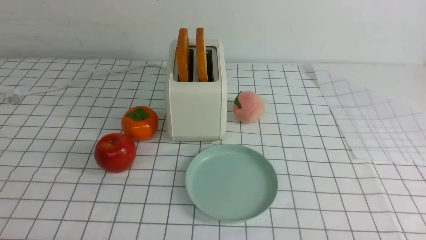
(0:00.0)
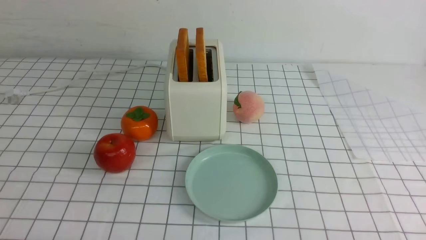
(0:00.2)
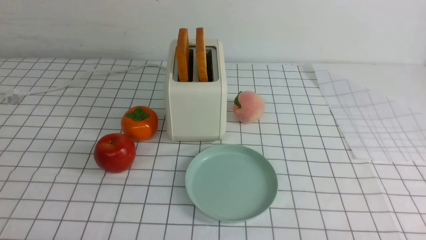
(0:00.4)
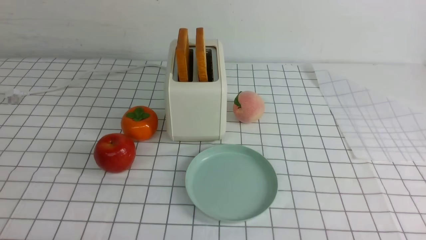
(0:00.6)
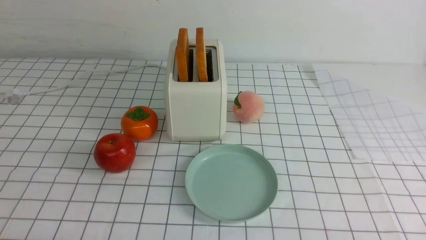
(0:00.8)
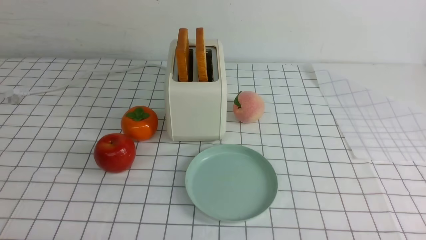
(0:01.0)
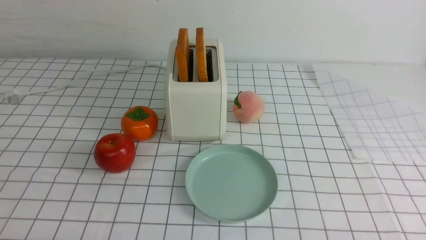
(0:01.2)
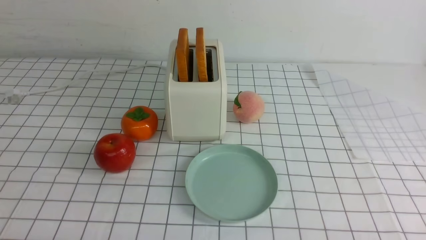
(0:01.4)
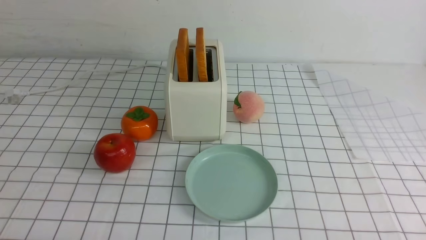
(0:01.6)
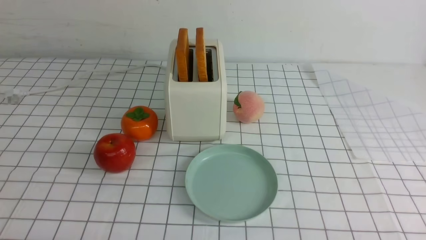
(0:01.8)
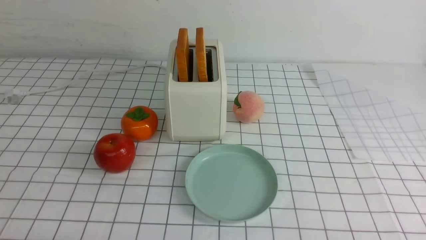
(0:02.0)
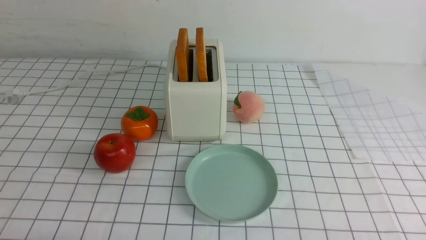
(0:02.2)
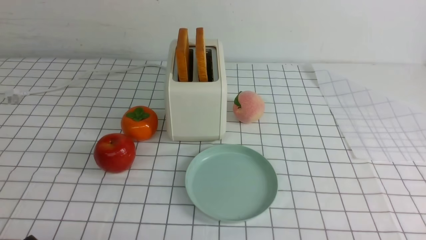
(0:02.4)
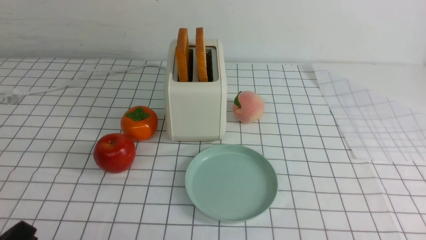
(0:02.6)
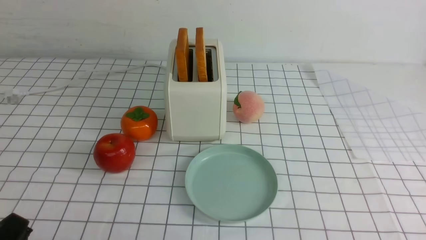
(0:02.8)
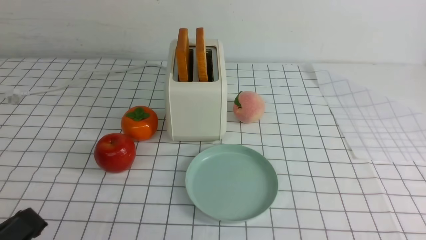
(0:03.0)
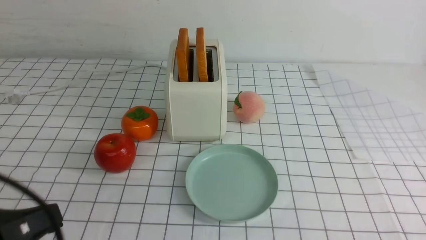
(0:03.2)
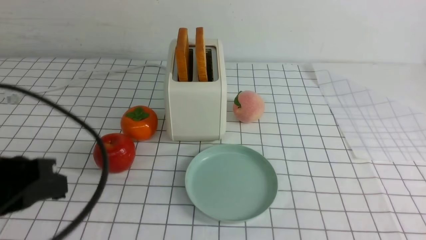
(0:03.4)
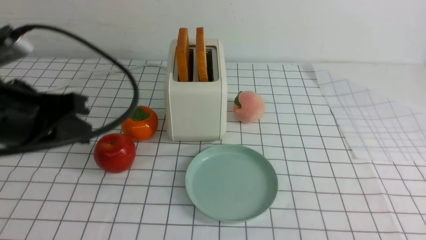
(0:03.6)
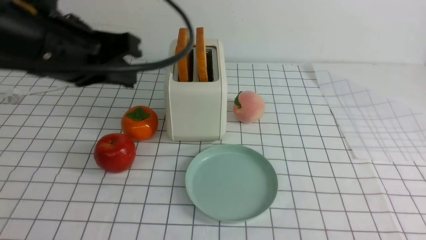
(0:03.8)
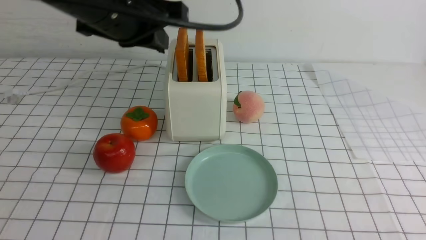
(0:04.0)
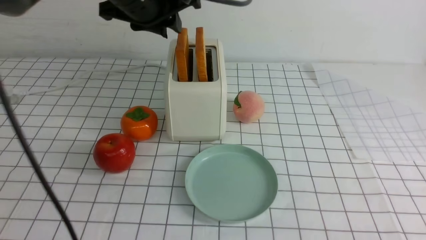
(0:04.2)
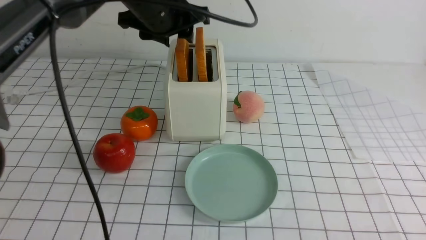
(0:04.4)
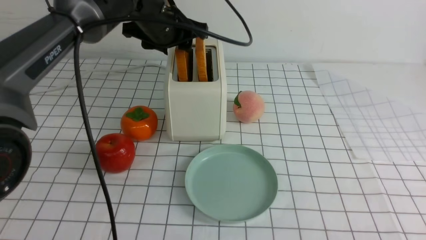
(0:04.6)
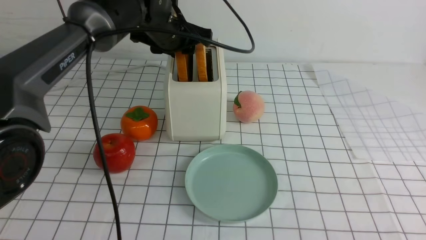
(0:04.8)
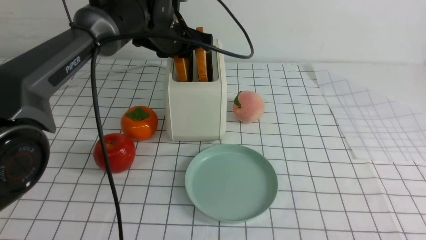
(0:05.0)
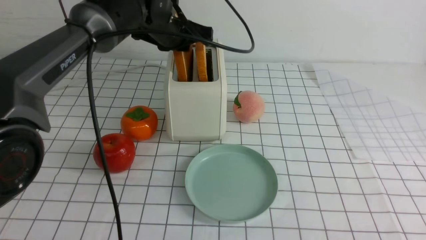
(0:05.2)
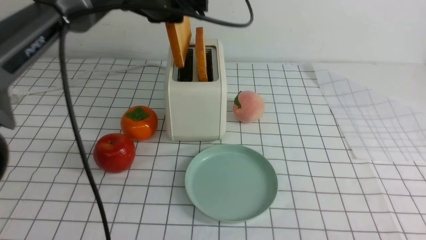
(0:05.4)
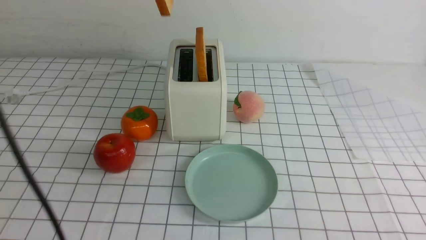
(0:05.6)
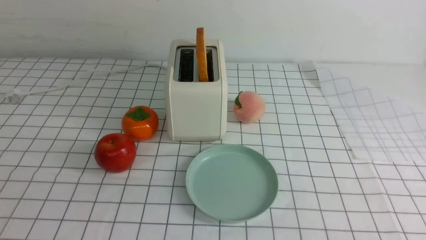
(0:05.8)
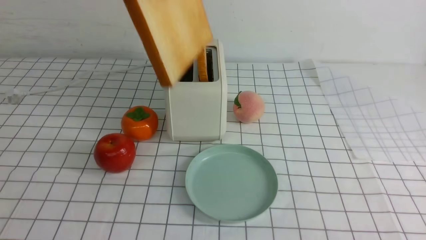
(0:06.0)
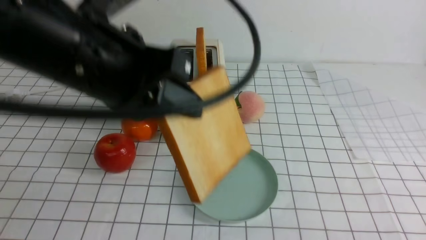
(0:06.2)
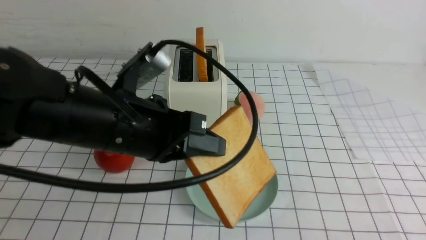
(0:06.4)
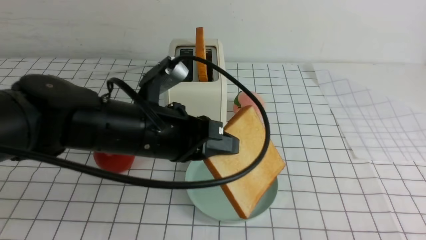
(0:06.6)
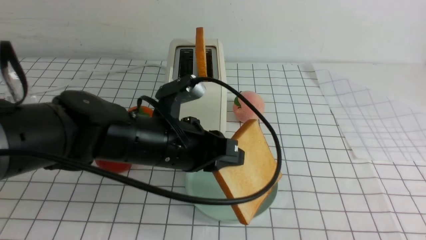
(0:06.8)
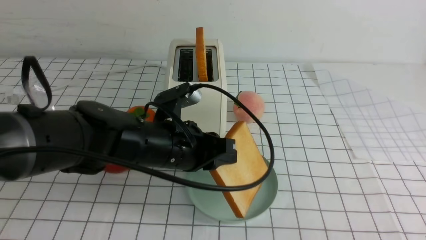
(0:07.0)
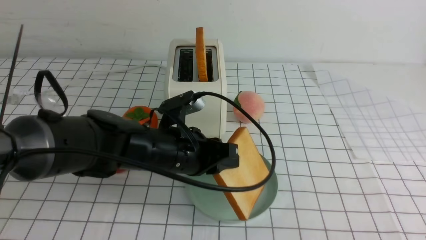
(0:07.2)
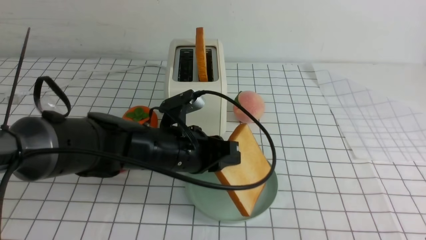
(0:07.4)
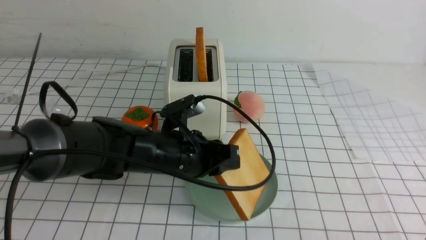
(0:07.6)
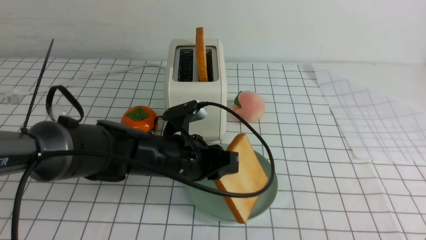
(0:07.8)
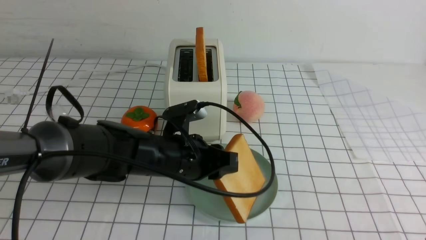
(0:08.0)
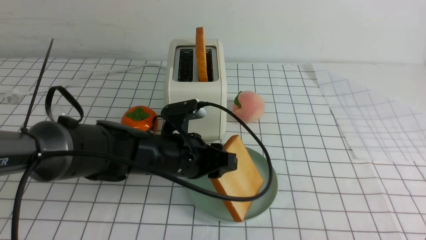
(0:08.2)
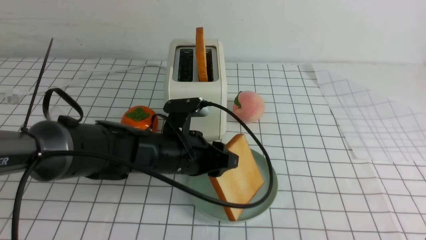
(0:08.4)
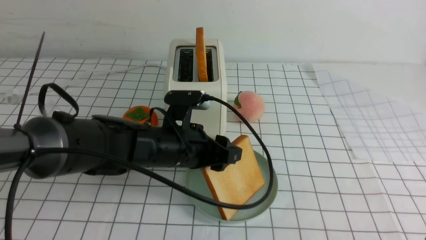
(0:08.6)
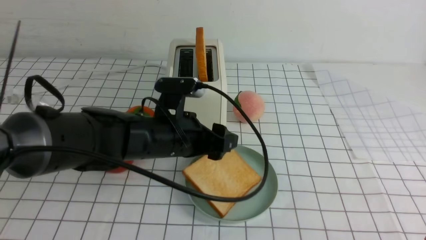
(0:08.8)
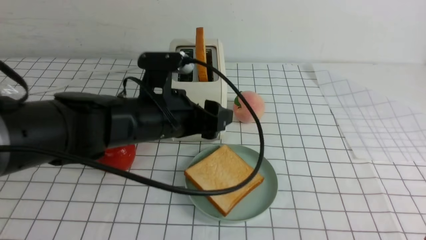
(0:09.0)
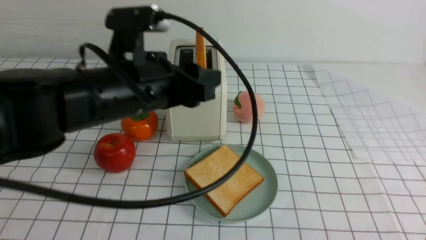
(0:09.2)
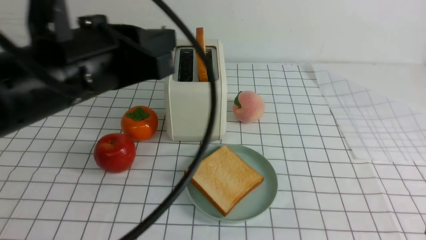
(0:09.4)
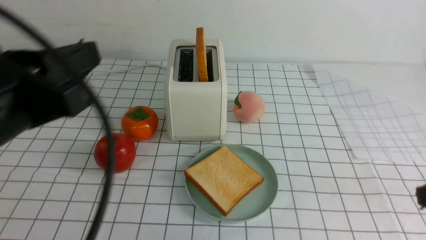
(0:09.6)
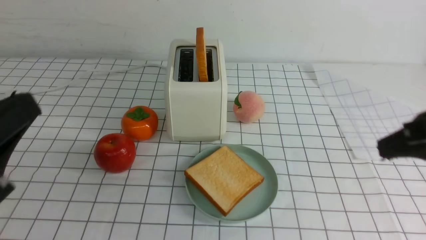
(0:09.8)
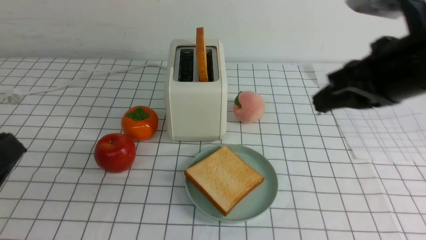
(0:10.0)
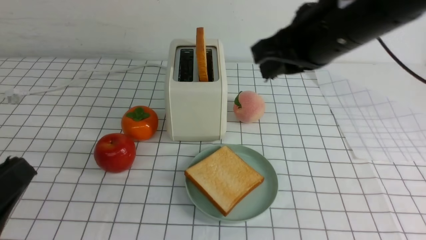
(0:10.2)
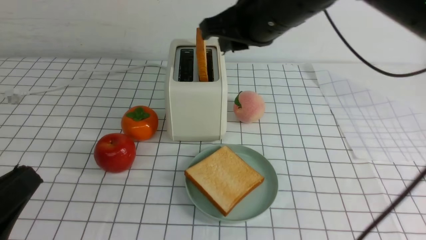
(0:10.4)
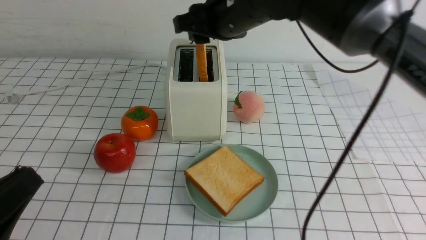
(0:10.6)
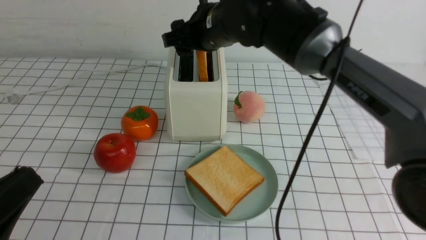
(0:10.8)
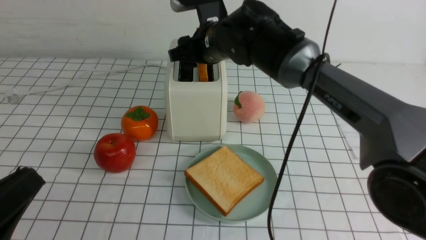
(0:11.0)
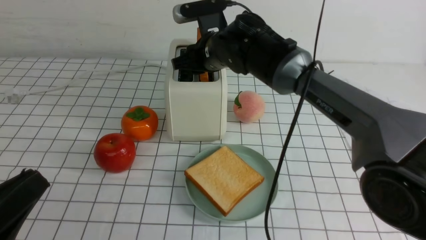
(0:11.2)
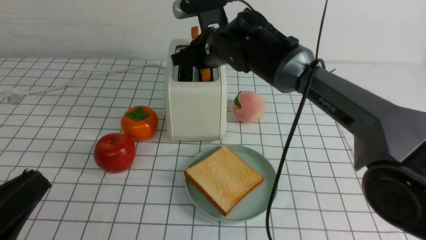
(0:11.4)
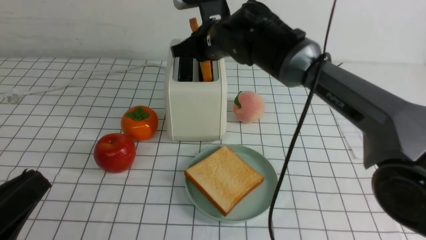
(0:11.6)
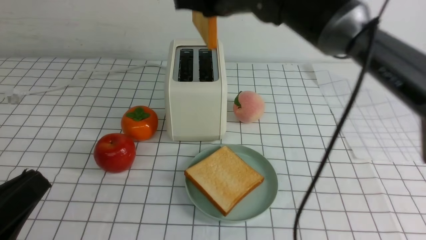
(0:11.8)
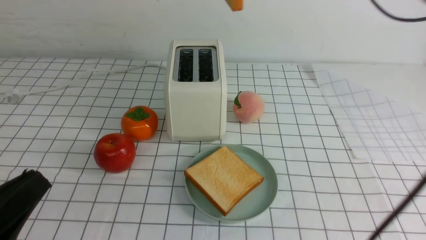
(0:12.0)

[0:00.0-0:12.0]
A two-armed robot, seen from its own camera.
Task of the whole recording: take toasted bread from bread machine on white checkered table place on plate.
Step, 0:00.0 to 0:05.2: use the left arm to take out a slice of bread.
Step, 0:05.4 to 0:09.0: use the left arm to put a slice of bread into the empty plate.
Step, 0:09.2 to 0:11.6: use the right arm to take out a slice of bread.
0:01.6 to 0:03.0: The left gripper goes some 5 cm upward.
0:03.0 to 0:04.4: The left gripper heads forward, upward and to the right, covering roughly 40 cm, and opens its fingers. Meanwhile the right gripper is displaced upward by roughly 5 cm, and closes.
0:04.4 to 0:06.0: The left gripper travels backward and upward by about 15 cm, and closes.
0:06.0 to 0:07.6: The left gripper travels downward by approximately 30 cm.
0:07.6 to 0:09.0: The left gripper opens up.
0:09.0 to 0:10.4: The left gripper goes approximately 30 cm backward and to the left, and closes its fingers; the right gripper moves forward, to the left and upward, approximately 35 cm.
0:10.4 to 0:12.0: The right gripper is displaced forward by some 5 cm, goes downward and returns, about 10 cm each way, and opens and closes again.

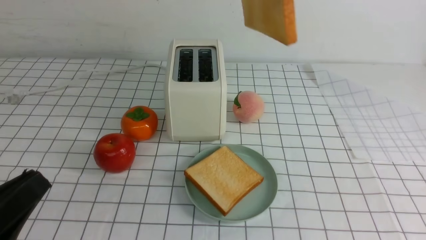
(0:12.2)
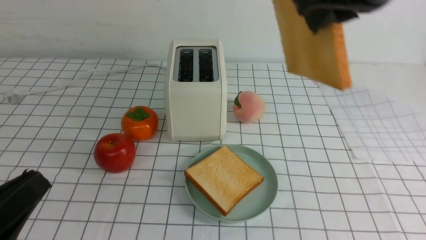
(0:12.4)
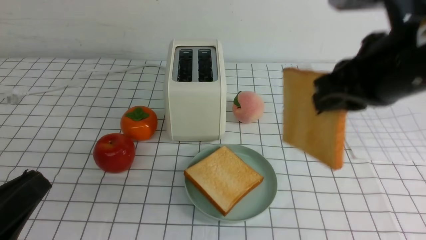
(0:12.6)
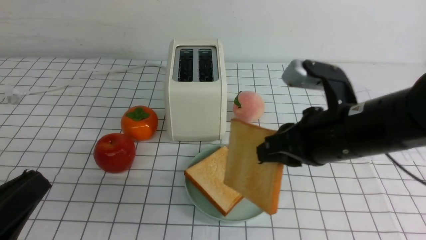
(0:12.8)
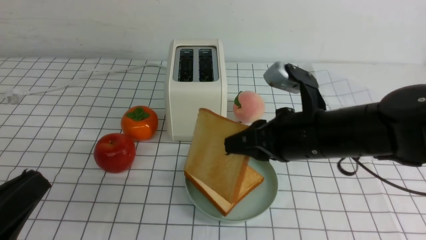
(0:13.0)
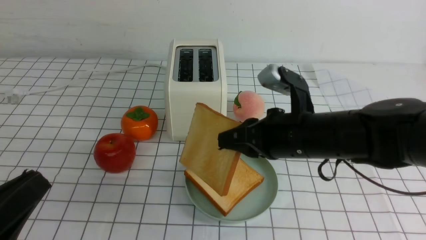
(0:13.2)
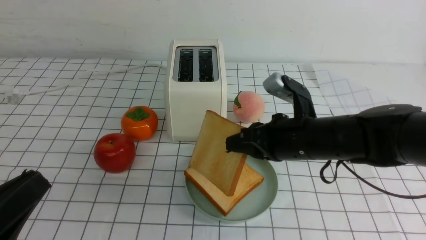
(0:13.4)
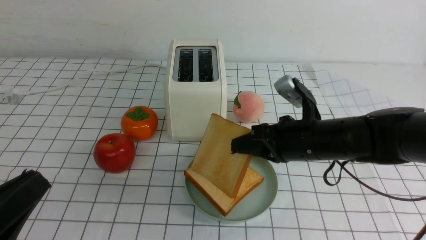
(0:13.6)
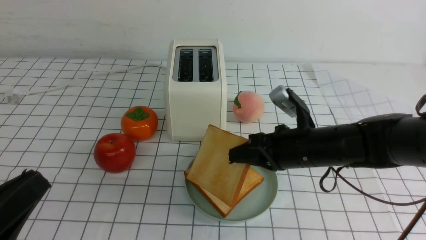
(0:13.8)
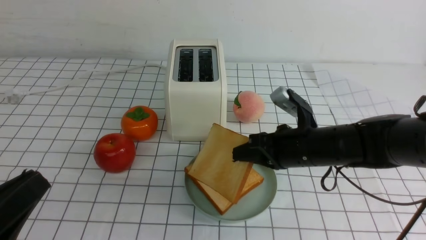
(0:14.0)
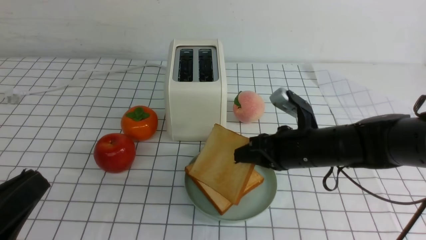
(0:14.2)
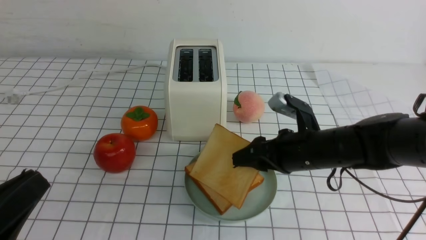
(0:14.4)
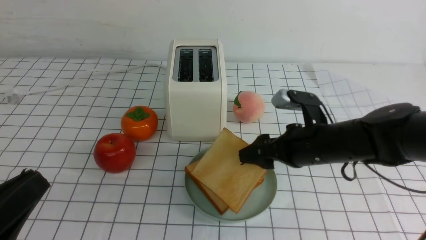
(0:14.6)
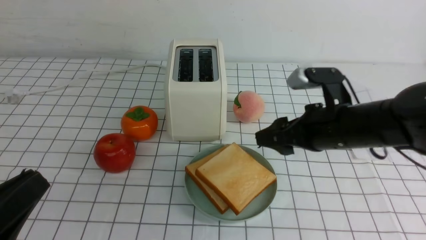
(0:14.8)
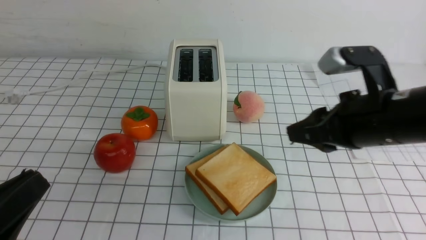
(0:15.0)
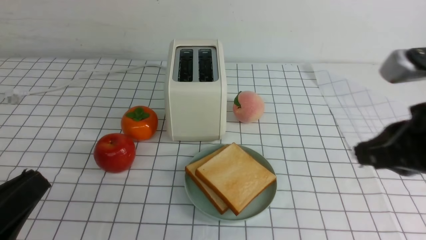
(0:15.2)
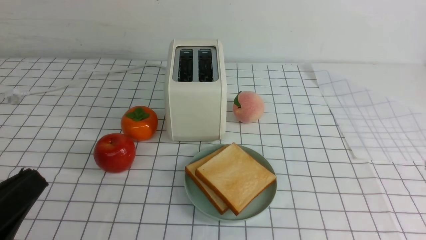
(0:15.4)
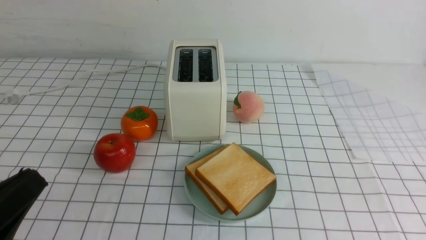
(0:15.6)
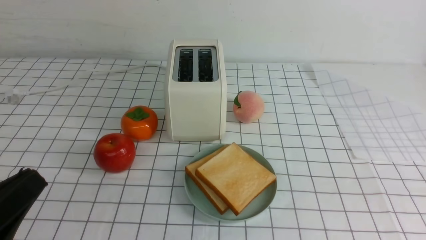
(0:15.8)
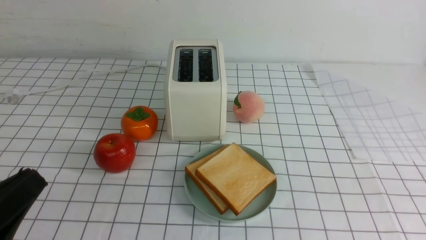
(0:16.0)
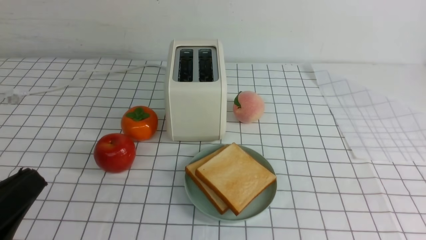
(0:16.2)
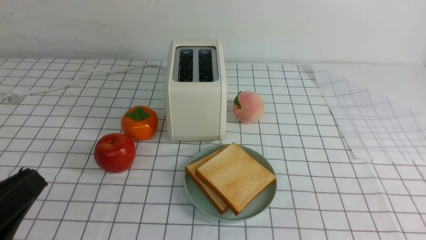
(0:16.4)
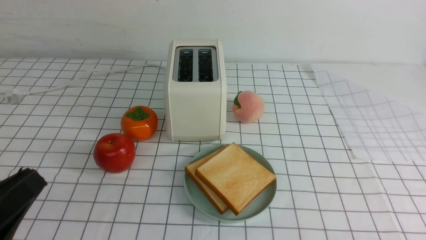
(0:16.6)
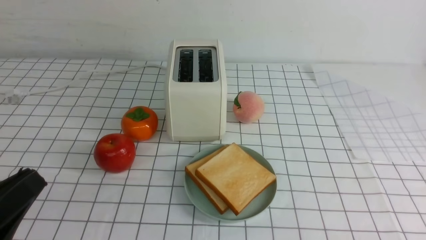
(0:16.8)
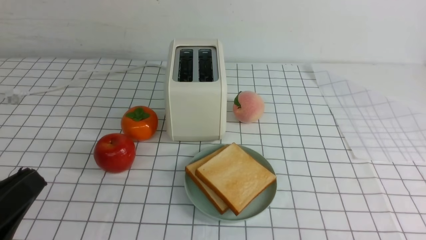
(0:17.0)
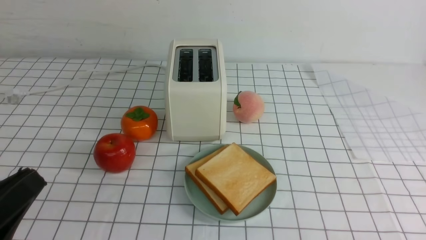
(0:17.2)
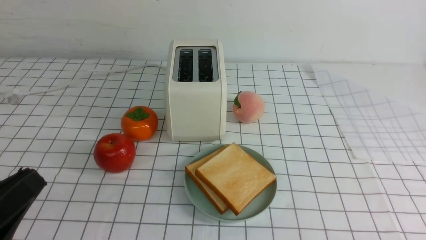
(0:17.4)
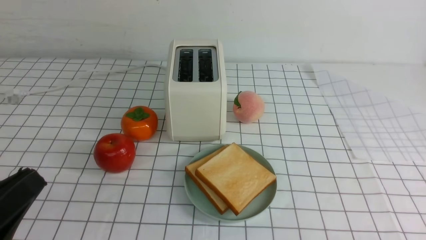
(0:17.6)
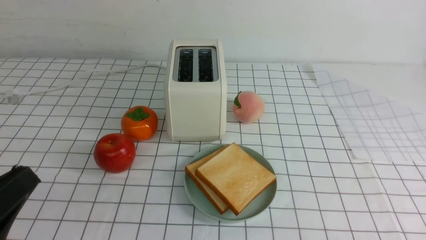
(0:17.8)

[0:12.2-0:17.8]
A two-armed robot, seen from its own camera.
Task of the whole recording: take toasted bread from bread machine on white checkered table place on plate.
Step, 0:12.2 to 0:14.6: use the right arm to put a slice of bread into the plate.
0:12.2 to 0:13.6: The right gripper travels downward by some 25 cm.
0:13.6 to 0:15.0: The right gripper moves upward, some 5 cm, and opens up.
0:15.0 to 0:16.4: The right gripper is displaced backward and to the right by roughly 25 cm, and closes.
